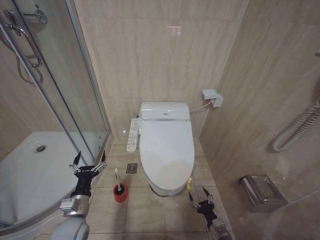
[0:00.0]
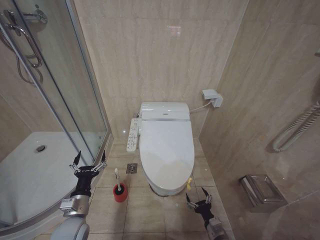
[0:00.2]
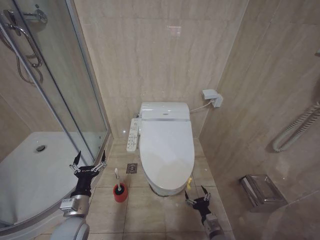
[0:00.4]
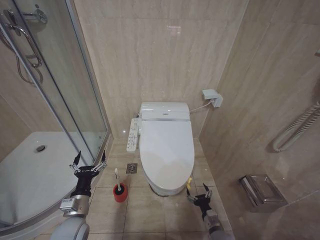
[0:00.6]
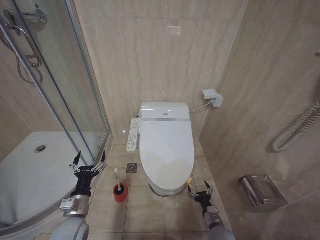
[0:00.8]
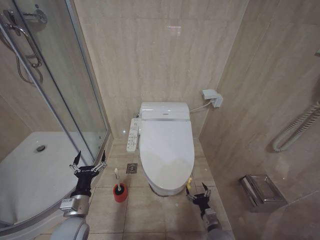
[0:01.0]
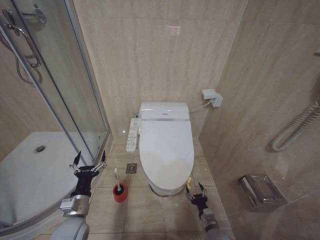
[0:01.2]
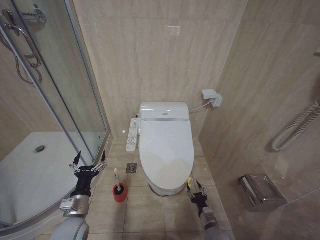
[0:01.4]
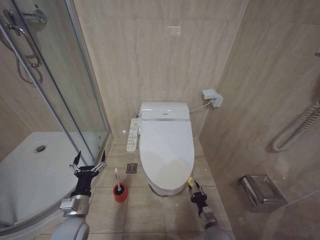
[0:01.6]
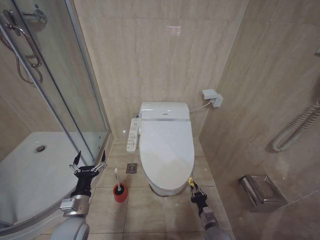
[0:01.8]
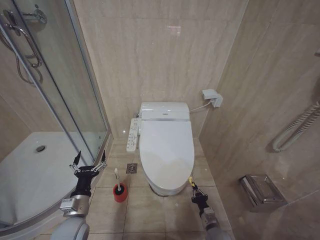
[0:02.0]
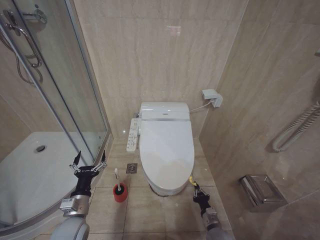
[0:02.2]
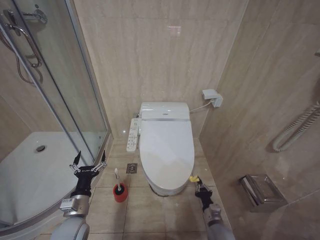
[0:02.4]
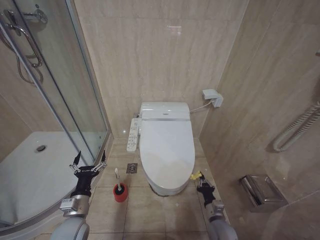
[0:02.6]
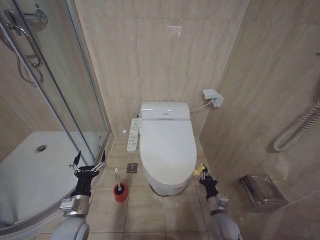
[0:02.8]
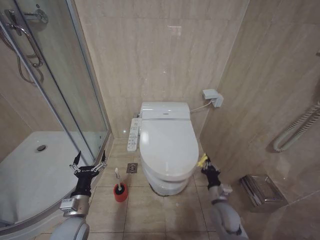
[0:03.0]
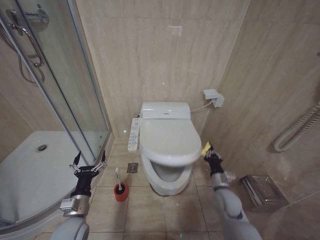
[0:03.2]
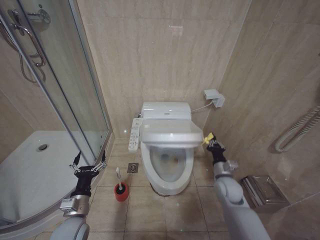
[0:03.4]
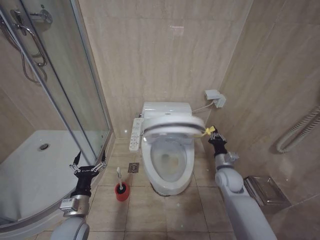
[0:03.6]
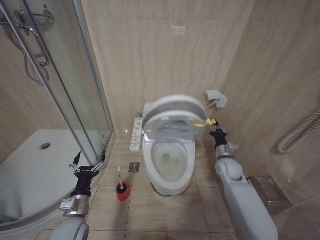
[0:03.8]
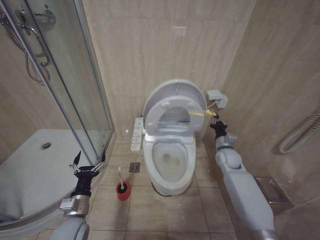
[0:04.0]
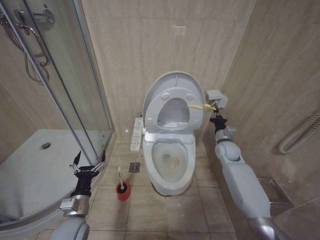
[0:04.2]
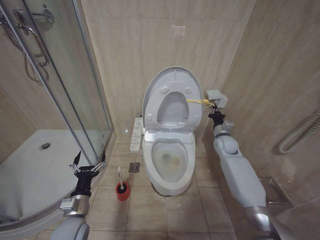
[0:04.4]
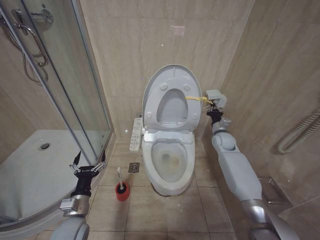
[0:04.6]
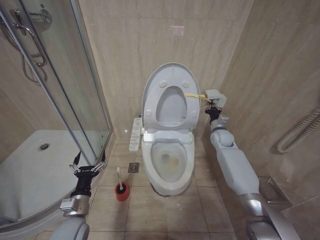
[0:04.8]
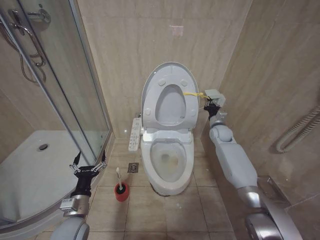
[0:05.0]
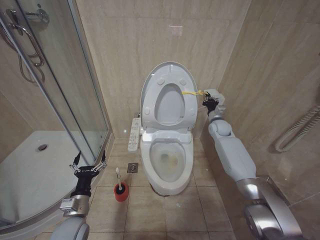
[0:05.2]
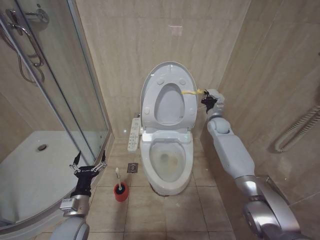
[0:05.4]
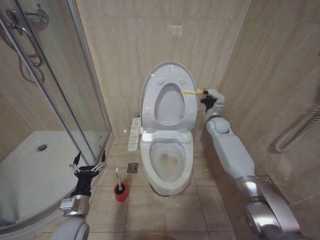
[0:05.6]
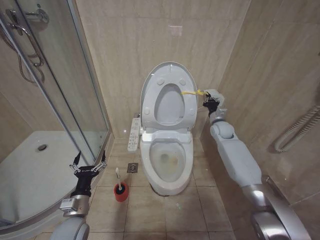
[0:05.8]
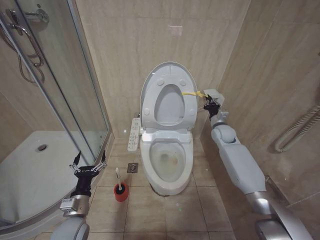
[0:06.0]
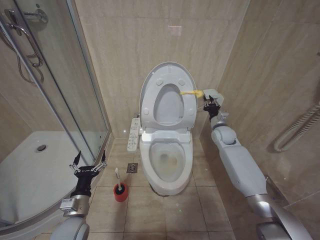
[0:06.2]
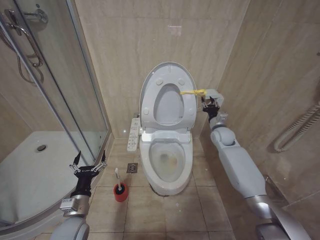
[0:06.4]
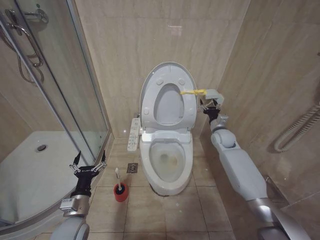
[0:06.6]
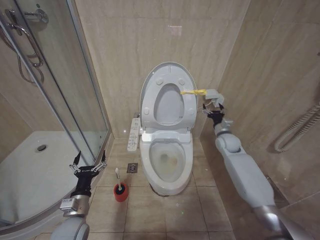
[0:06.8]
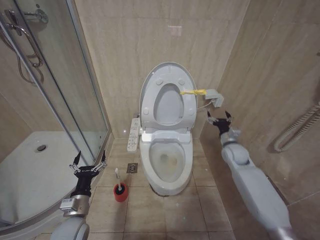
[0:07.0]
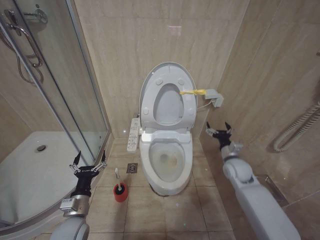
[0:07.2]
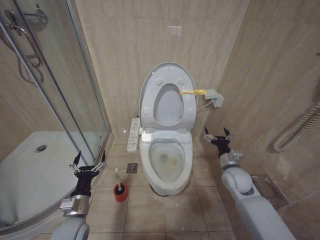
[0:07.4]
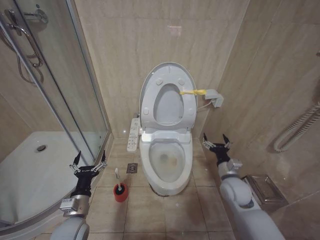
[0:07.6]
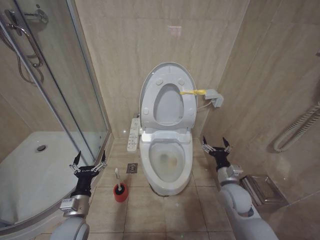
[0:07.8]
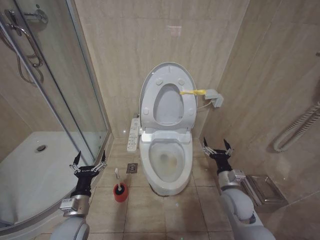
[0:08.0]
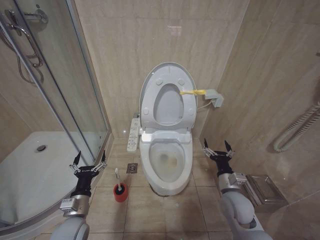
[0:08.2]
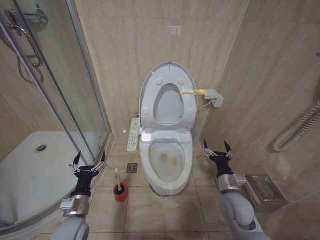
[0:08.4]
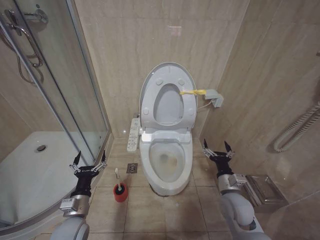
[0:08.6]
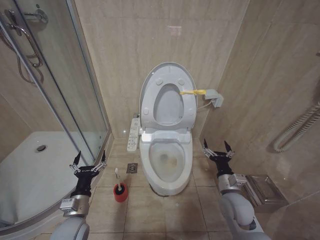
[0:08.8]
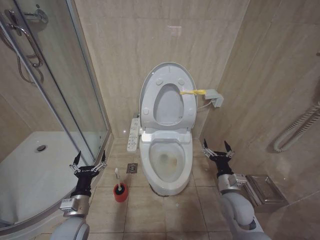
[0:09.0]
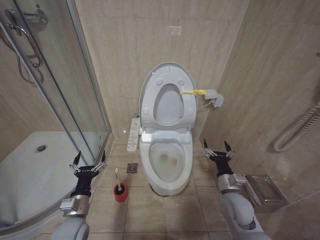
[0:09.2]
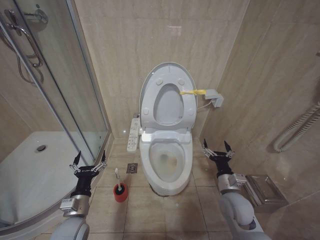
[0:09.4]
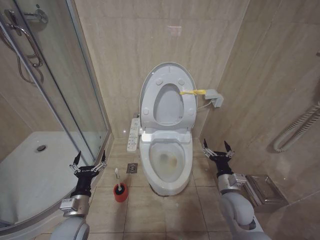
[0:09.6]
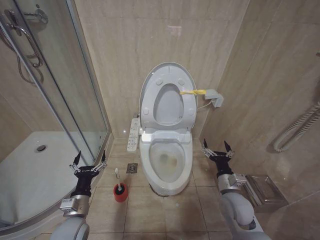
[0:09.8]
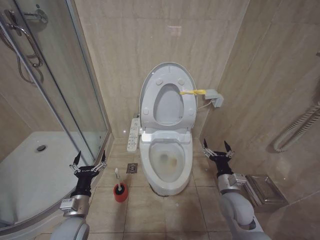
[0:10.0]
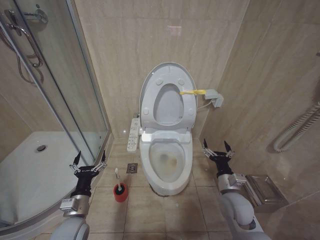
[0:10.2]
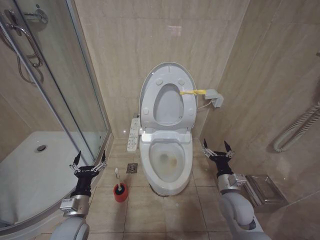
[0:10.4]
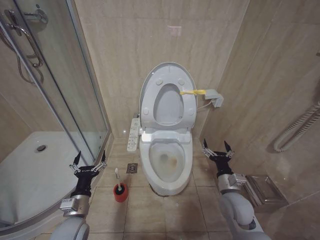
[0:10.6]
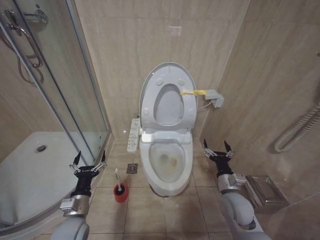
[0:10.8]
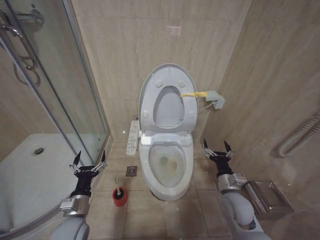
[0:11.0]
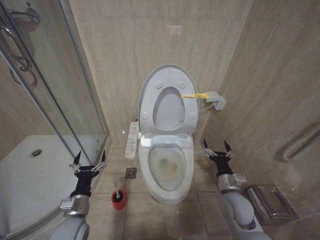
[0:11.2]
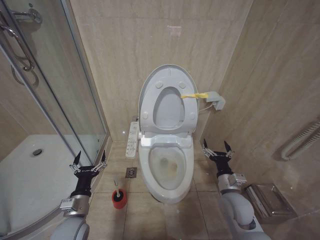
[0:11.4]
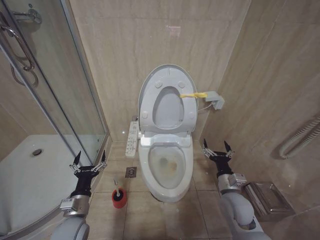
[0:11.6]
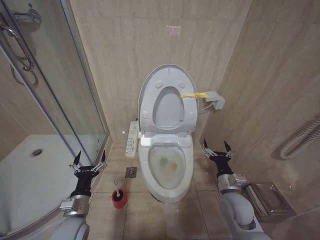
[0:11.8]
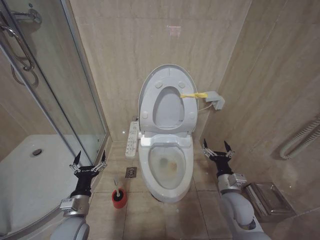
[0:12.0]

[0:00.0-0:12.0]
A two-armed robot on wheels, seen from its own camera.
Task of the whole recording: Open the toilet lid, clean the toilet bowl with a toilet brush, close the toilet lid, and flush.
0:00.0 to 0:01.6: The right gripper heads forward, covering about 5 cm.
0:01.6 to 0:03.0: The right gripper shifts roughly 10 cm upward, and closes up.
0:03.0 to 0:04.4: The right gripper moves forward and upward, some 30 cm.
0:04.4 to 0:06.0: The right gripper moves upward, roughly 5 cm.
0:06.0 to 0:07.6: The right gripper moves backward and downward, some 25 cm, and opens.
0:07.6 to 0:09.0: The right gripper is displaced backward by approximately 5 cm.
0:09.0 to 0:12.0: Both grippers stay put.

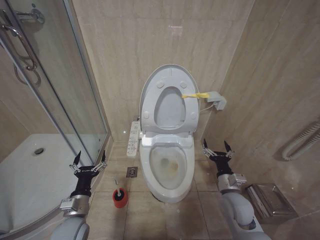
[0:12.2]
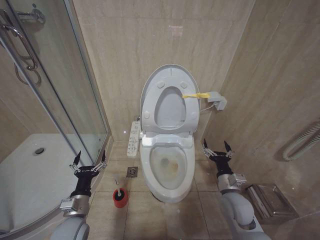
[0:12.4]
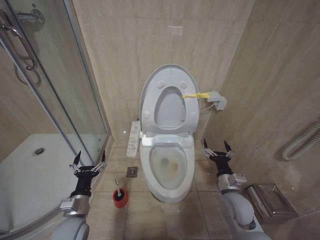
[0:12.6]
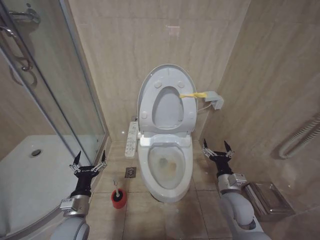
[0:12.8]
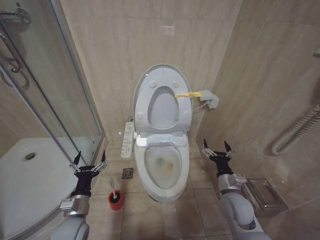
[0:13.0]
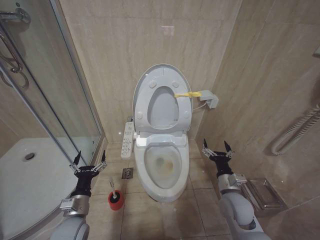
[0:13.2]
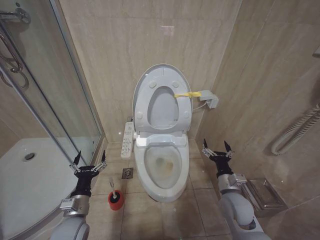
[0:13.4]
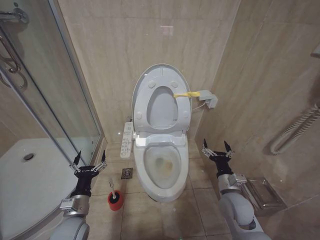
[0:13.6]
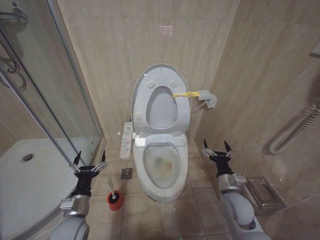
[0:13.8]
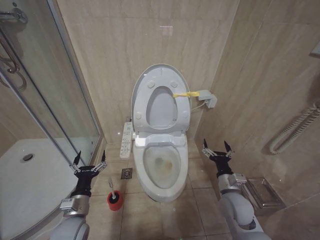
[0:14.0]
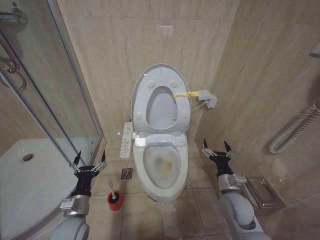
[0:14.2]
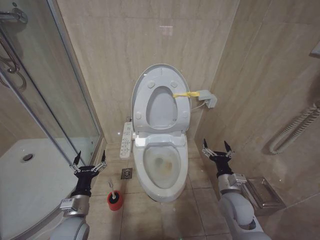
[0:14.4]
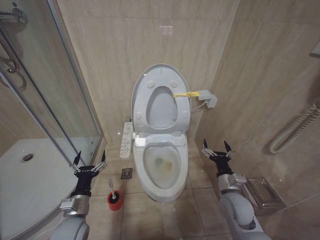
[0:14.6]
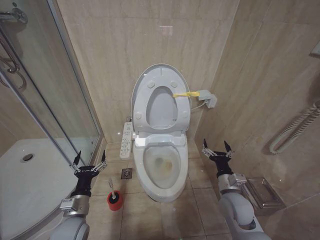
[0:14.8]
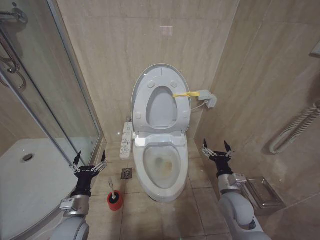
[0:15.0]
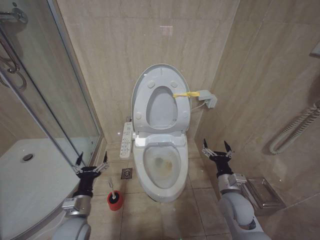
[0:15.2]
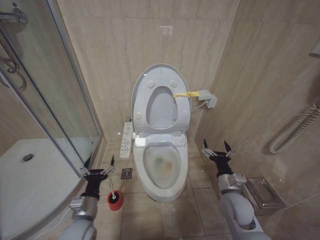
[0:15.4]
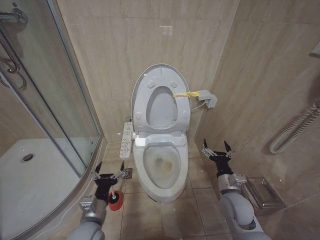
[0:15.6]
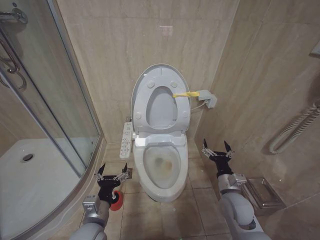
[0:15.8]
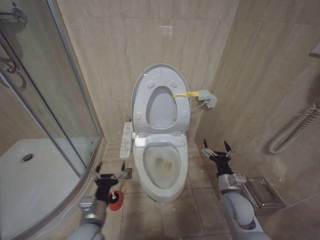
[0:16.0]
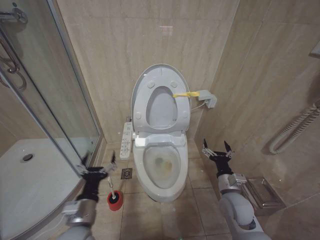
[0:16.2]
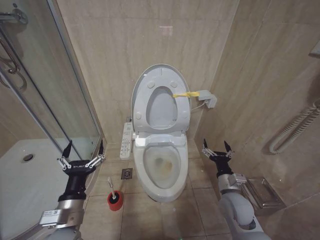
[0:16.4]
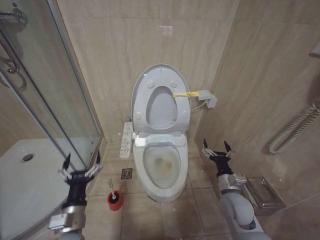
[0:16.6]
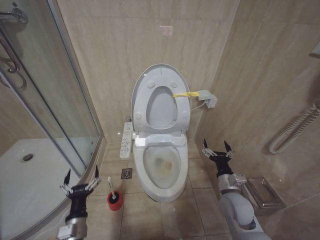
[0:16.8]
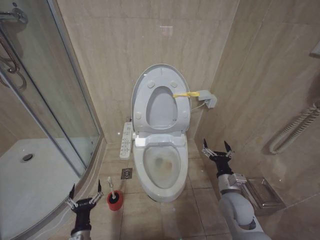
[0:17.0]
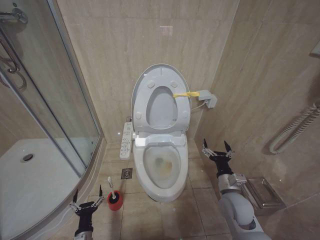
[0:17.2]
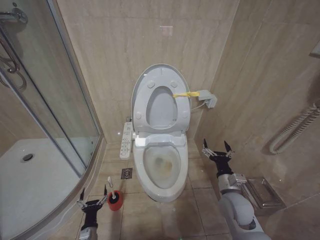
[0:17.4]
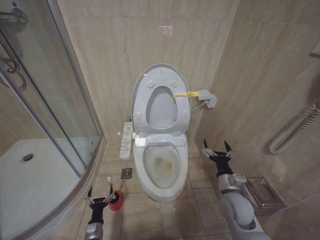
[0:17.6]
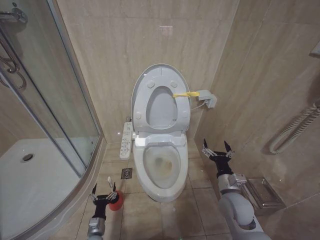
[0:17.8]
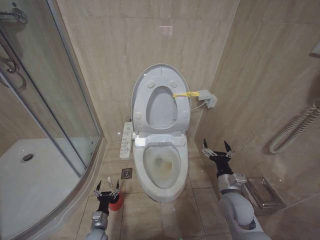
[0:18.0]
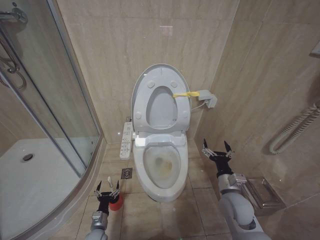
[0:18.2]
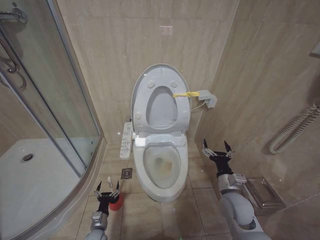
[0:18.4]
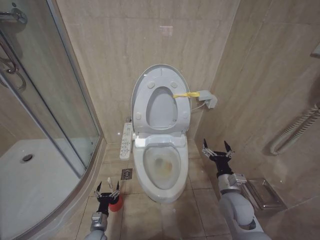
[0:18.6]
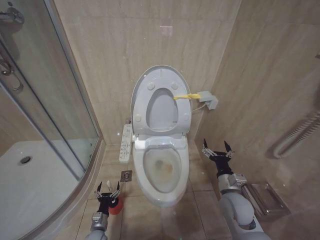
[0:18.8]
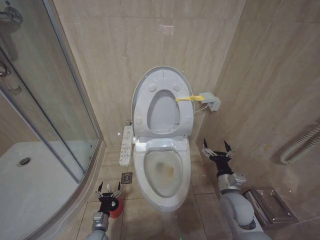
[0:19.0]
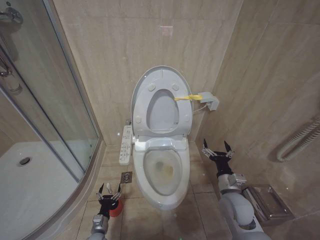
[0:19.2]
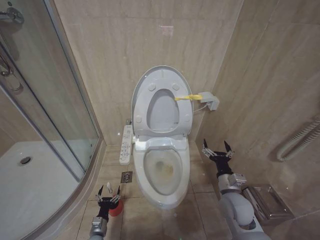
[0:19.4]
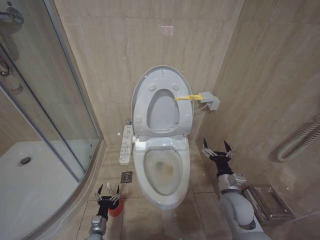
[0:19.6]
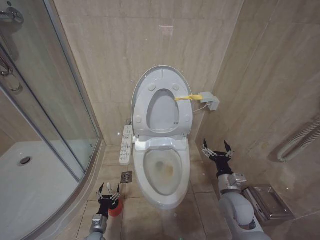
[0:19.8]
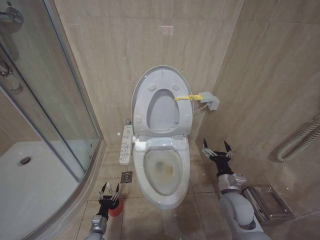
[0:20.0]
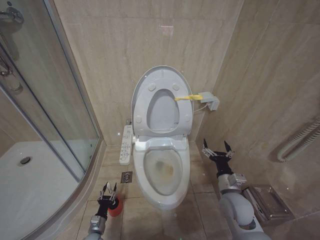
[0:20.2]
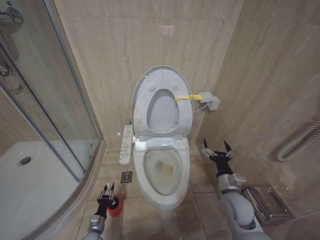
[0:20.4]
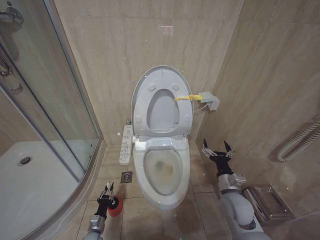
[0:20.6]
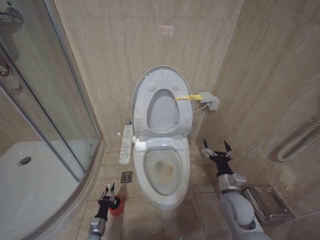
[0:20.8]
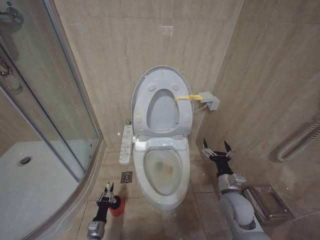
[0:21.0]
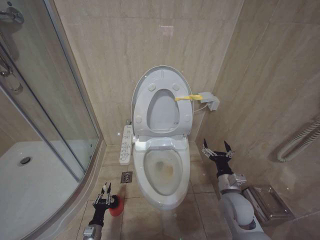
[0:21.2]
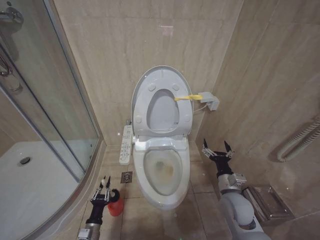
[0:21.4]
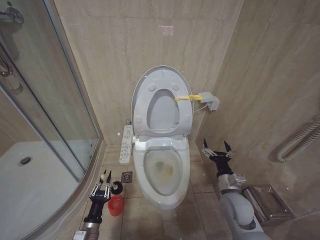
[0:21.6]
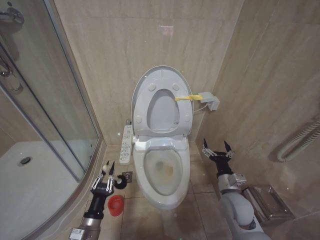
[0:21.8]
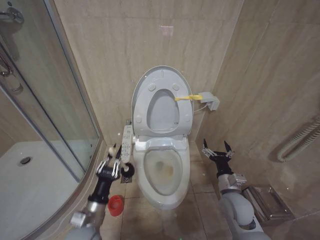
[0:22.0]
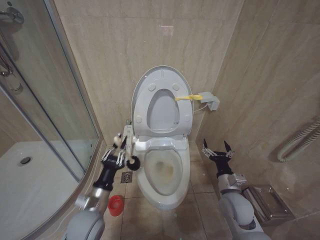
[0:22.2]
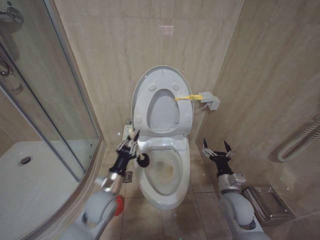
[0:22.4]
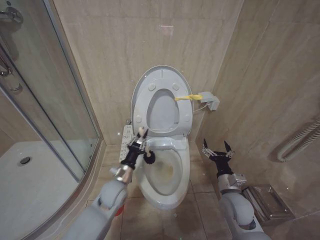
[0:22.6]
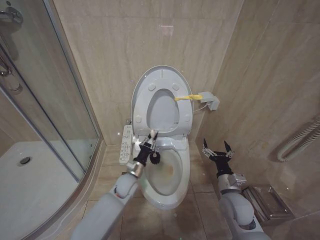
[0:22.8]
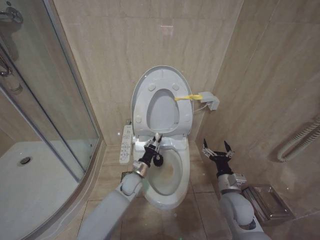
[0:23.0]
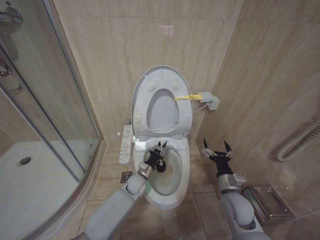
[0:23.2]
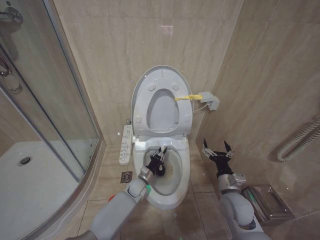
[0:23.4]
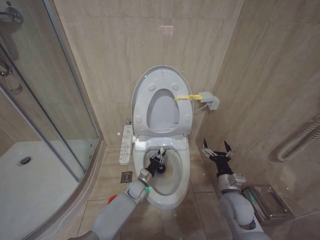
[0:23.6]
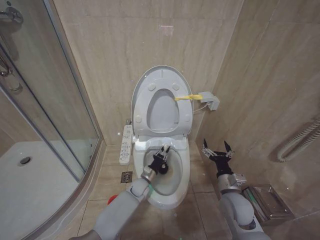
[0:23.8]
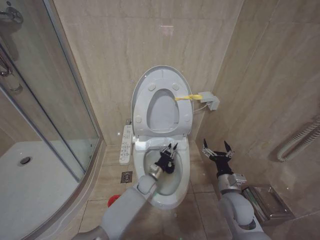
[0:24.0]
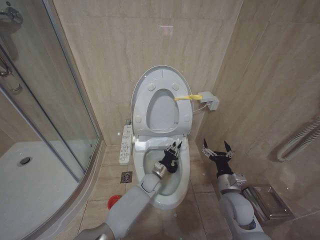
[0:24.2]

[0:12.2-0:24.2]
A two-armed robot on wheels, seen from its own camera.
Task of the whole recording: Open the toilet lid, clean the toilet bowl with a toilet brush, close the toilet lid, and flush.
0:12.2 to 0:15.2: Both grippers stay put.
0:15.2 to 0:16.6: The left gripper shifts about 10 cm upward and backward.
0:16.6 to 0:18.2: The left gripper is displaced downward by some 30 cm.
0:18.2 to 0:19.8: The grippers make only small movements.
0:19.8 to 0:21.2: The left gripper closes up.
0:21.2 to 0:22.6: The left gripper is displaced upward and to the right by approximately 30 cm.
0:22.6 to 0:24.2: The left gripper goes approximately 20 cm to the right, downward and forward.
